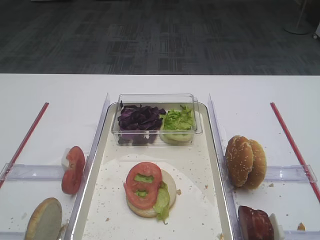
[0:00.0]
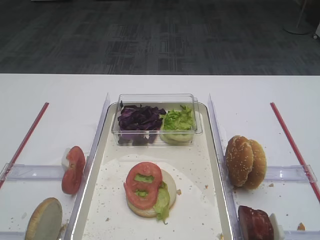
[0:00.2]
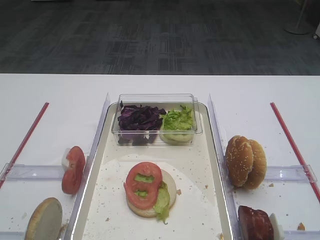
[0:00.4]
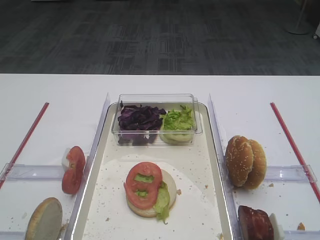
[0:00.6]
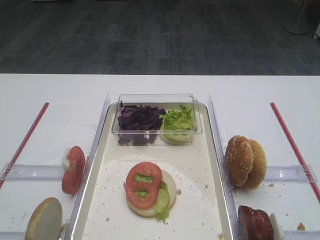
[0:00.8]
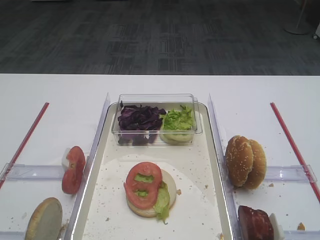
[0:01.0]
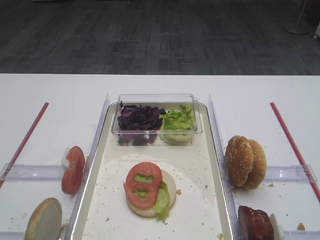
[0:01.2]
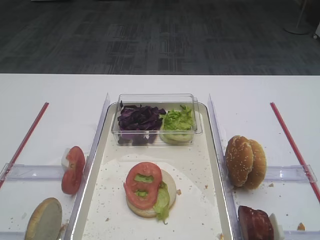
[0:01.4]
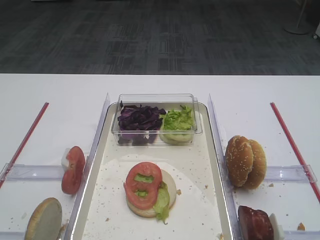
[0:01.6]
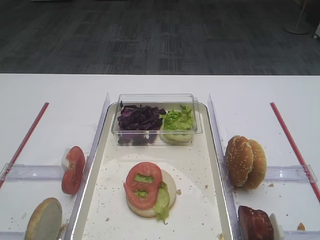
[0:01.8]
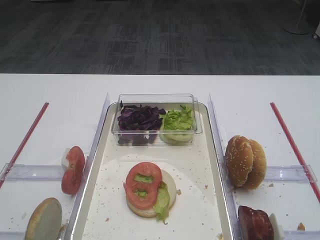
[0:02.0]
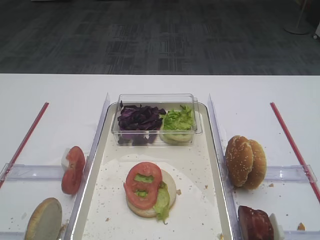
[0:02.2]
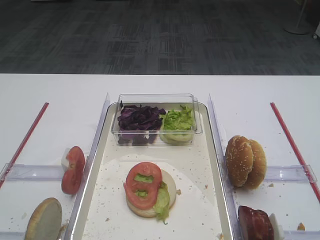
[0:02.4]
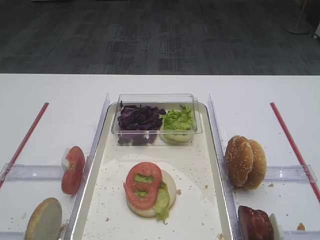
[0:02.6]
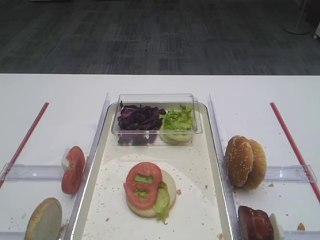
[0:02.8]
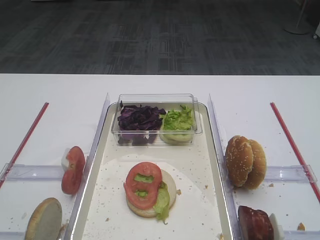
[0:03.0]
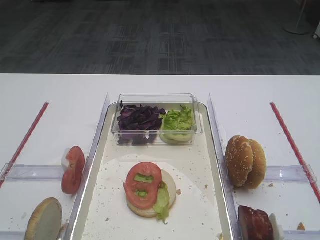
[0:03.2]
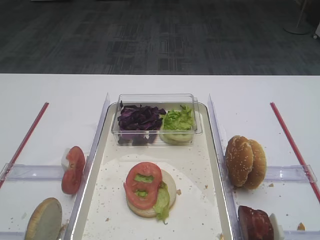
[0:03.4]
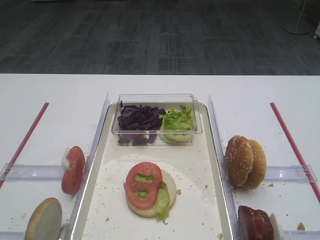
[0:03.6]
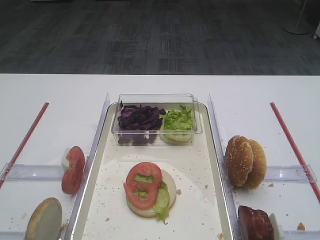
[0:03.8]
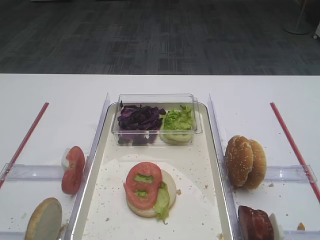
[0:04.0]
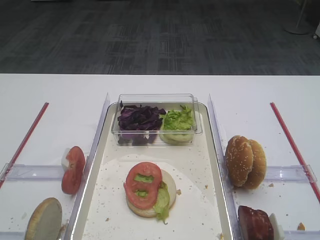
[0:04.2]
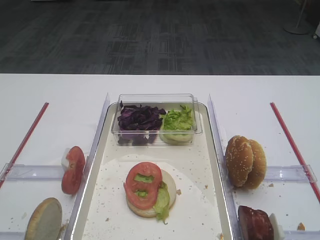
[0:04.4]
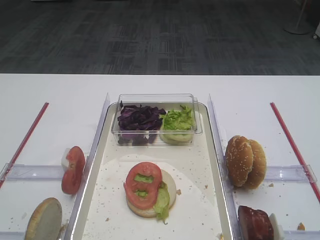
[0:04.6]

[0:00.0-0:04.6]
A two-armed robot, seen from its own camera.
0:01.6 to 0:04.6: Both grippers stay about where they are.

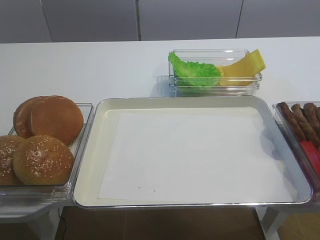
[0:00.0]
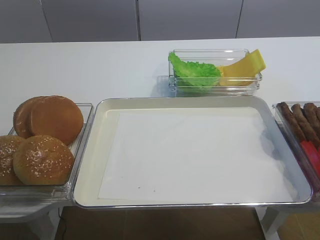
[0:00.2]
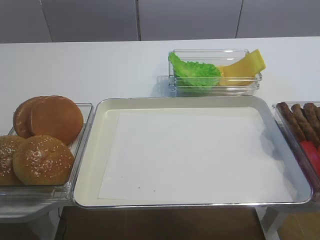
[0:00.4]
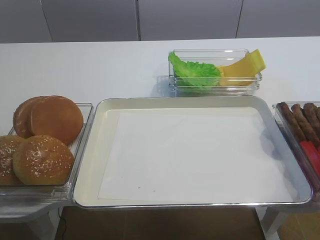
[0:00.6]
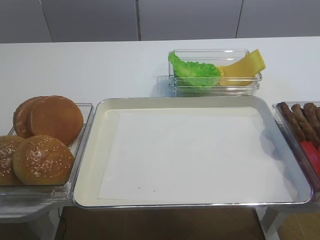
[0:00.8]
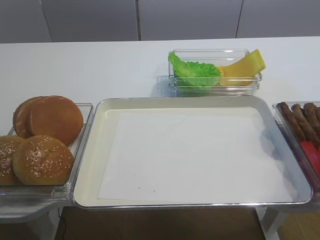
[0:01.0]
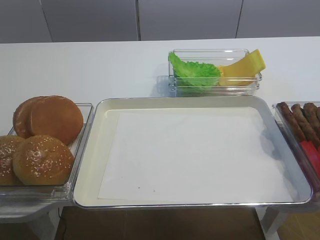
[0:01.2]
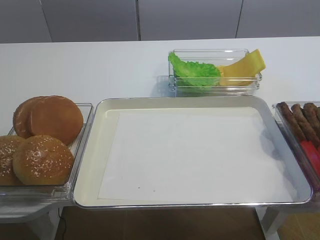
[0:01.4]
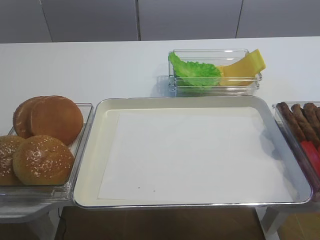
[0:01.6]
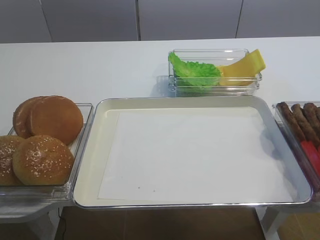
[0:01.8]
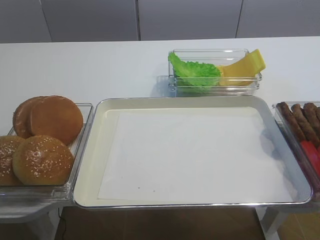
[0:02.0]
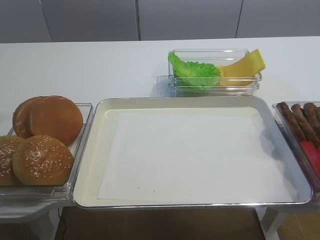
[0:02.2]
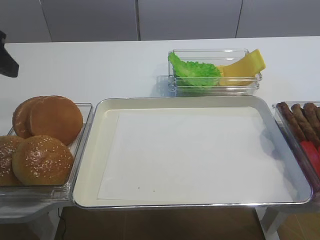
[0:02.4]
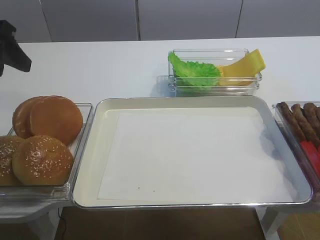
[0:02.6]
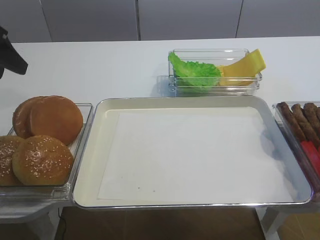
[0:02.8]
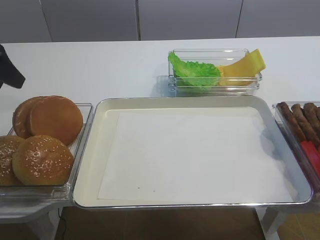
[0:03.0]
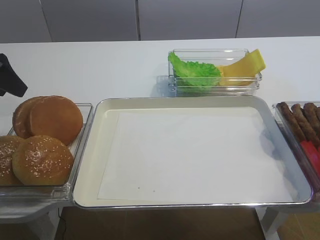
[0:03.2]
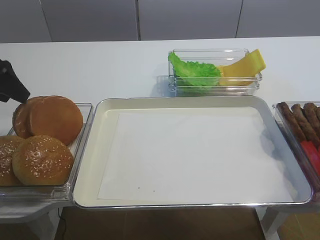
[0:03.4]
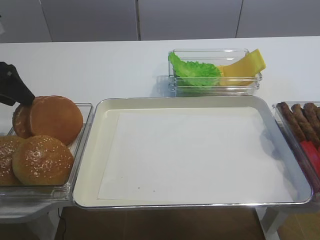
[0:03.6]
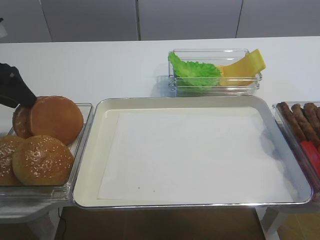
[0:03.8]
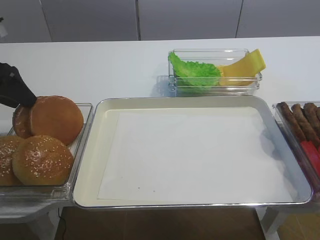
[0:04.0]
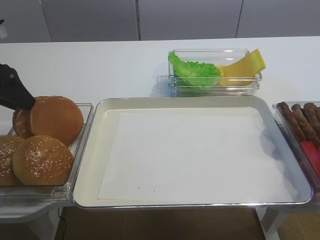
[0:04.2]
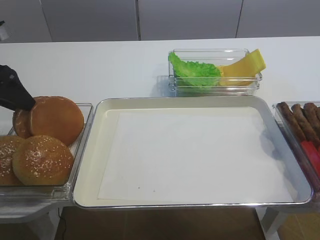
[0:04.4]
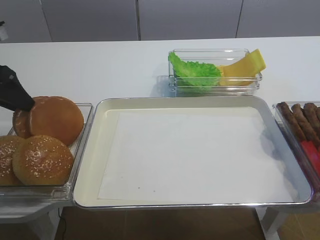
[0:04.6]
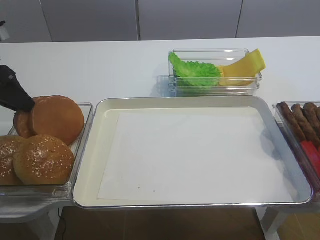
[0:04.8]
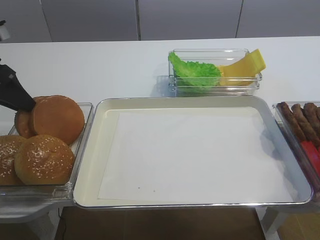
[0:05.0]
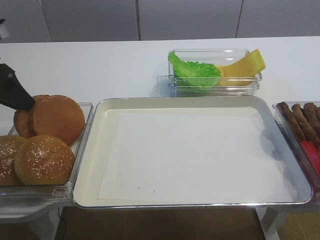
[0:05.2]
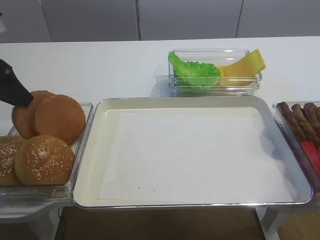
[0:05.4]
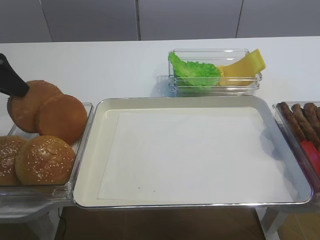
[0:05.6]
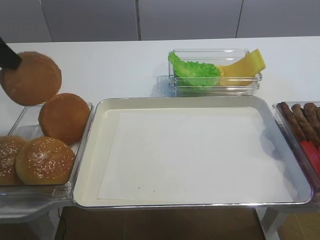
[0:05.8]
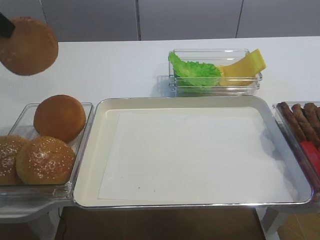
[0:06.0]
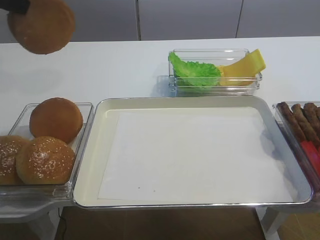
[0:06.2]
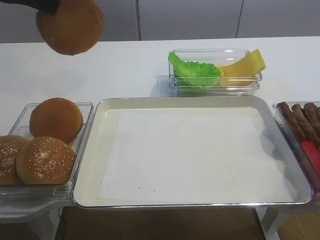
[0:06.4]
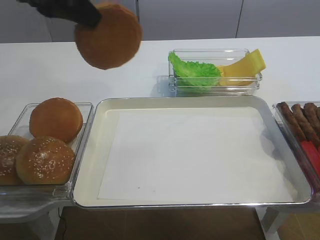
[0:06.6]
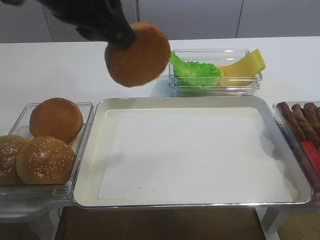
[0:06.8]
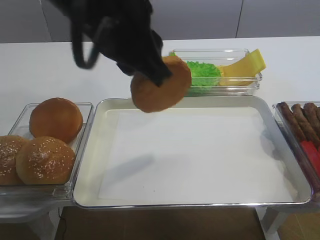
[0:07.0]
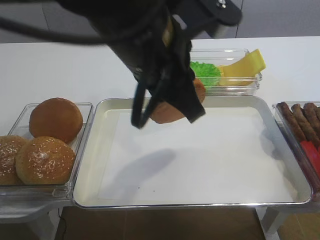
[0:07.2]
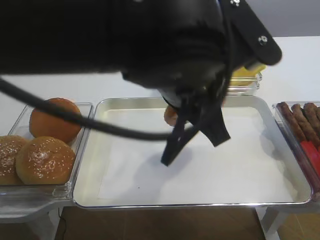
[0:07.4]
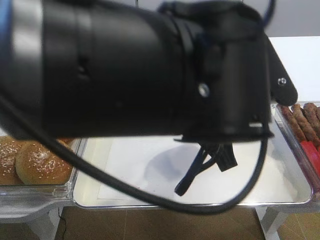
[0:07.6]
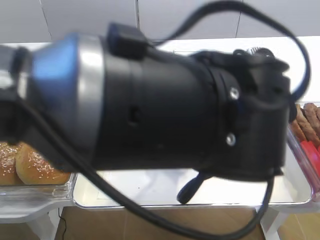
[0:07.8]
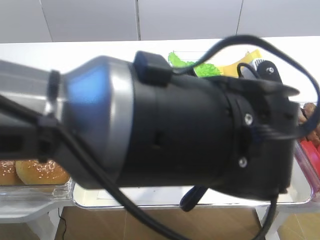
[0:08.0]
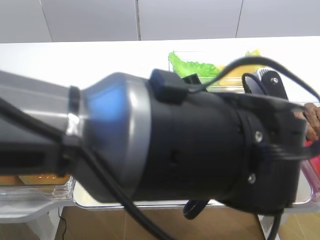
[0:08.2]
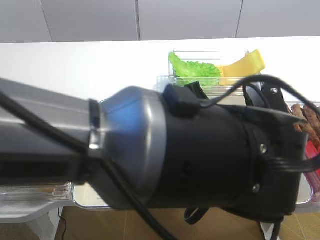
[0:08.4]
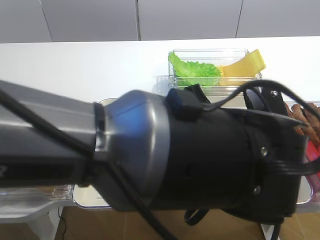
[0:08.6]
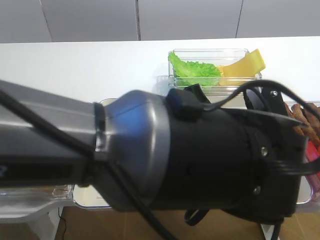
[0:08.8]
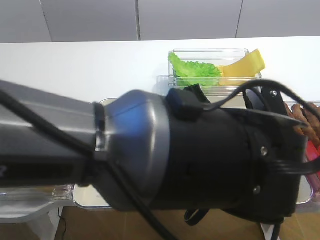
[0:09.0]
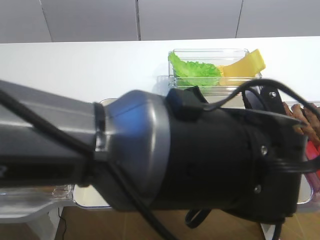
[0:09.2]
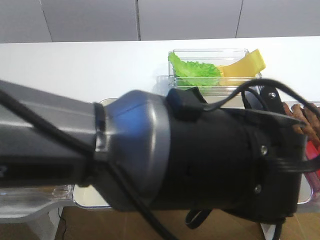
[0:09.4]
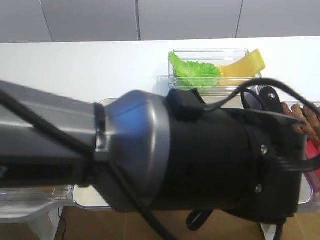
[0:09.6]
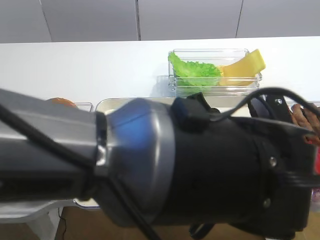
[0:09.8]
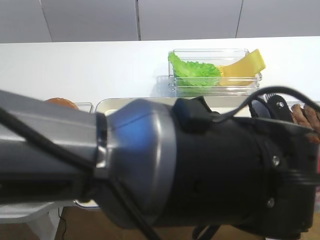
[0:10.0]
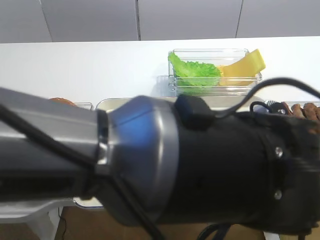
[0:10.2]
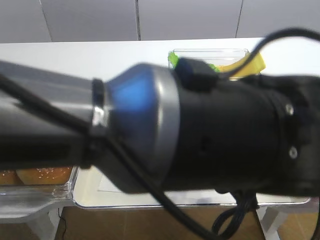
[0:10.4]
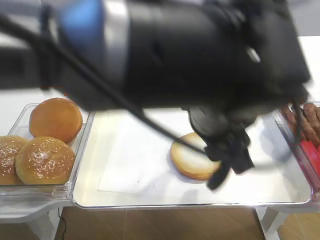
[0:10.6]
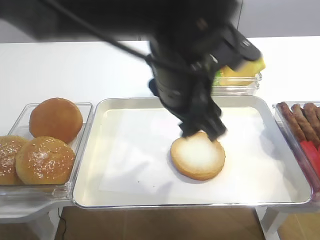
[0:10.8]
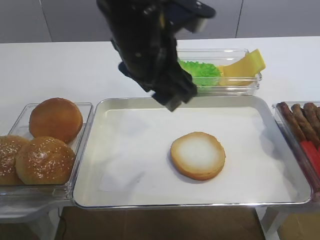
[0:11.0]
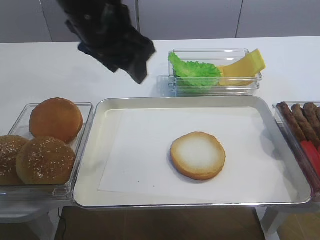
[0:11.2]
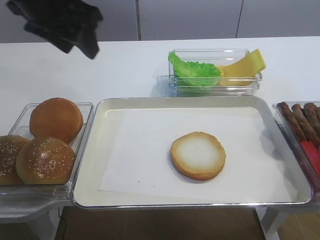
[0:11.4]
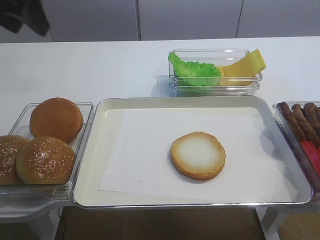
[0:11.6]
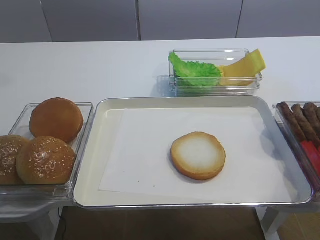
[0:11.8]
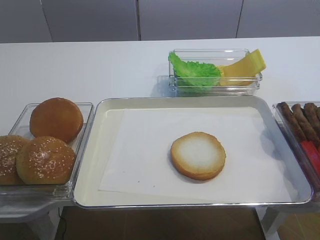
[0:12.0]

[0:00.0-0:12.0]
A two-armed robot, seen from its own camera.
Step, 0:00.0 to 0:06.2: Pick up the bread slice with the left gripper.
Step, 0:06.6 to 0:10.8: Place the bread slice on the tray with the left gripper.
0:01.6 to 0:03.0: The left gripper travels forward by approximately 30 cm.
0:03.0 to 0:04.4: The left gripper moves about 5 cm, and closes up.
0:04.4 to 0:06.0: The left gripper is displaced upward by some 15 cm, and closes up.
0:06.0 to 0:07.6: The left gripper shifts about 35 cm to the right.
0:07.6 to 0:09.0: The left gripper changes place by about 5 cm.
0:09.0 to 0:10.4: The left gripper opens up.
0:10.4 to 0:12.0: The left gripper goes approximately 40 cm to the left and upward.

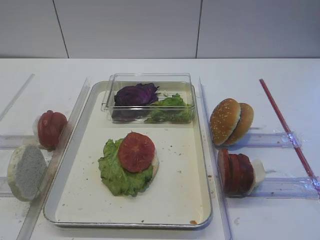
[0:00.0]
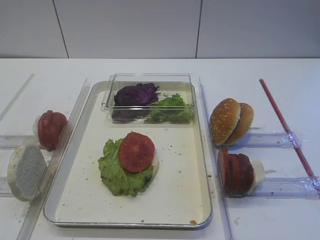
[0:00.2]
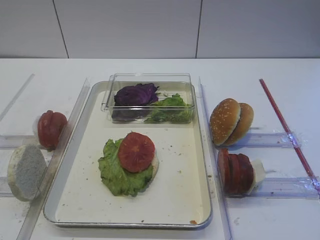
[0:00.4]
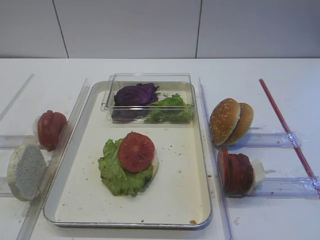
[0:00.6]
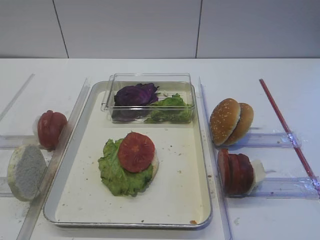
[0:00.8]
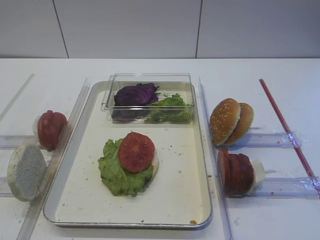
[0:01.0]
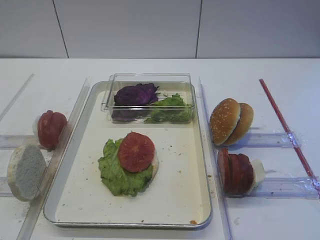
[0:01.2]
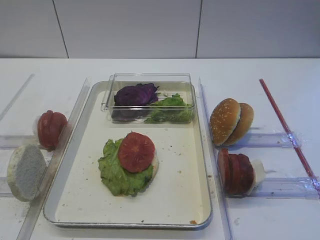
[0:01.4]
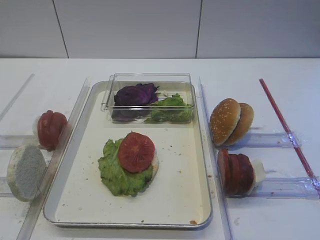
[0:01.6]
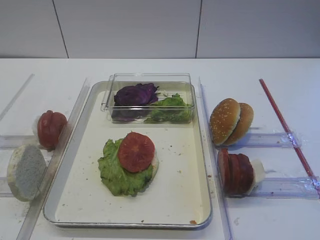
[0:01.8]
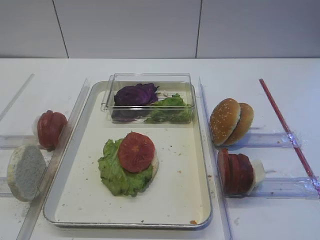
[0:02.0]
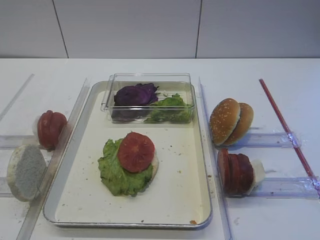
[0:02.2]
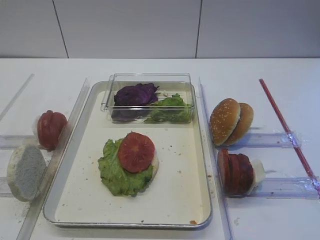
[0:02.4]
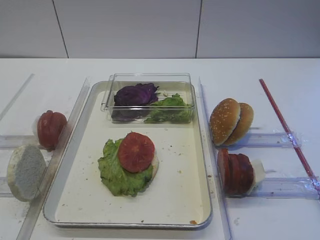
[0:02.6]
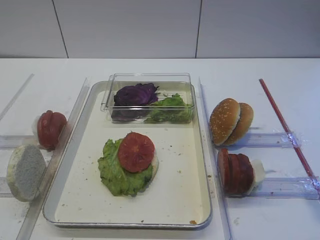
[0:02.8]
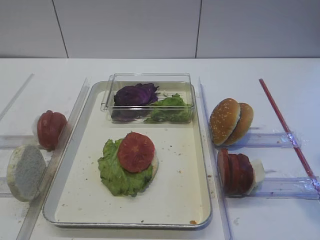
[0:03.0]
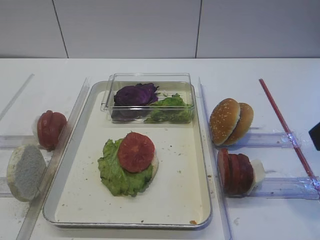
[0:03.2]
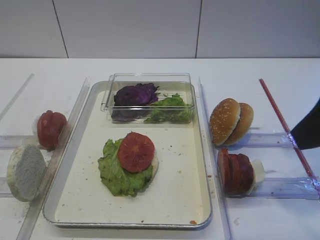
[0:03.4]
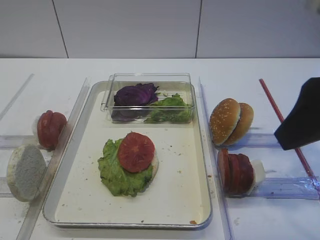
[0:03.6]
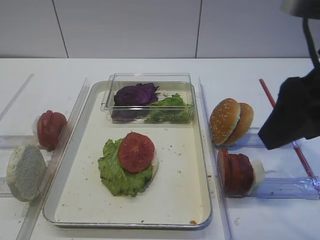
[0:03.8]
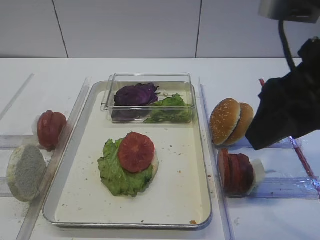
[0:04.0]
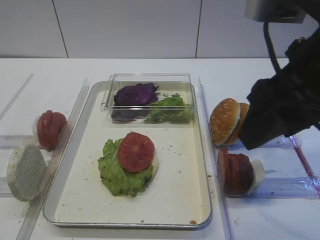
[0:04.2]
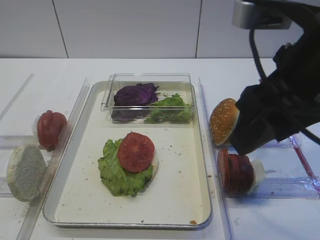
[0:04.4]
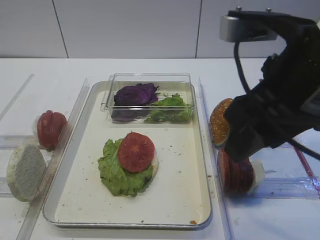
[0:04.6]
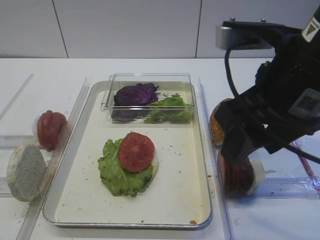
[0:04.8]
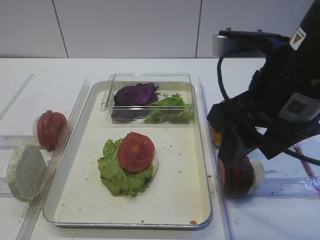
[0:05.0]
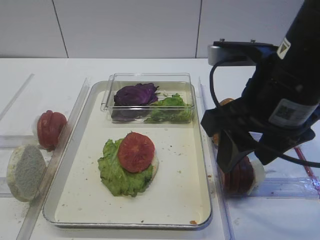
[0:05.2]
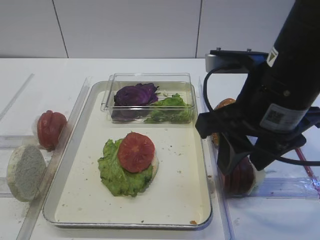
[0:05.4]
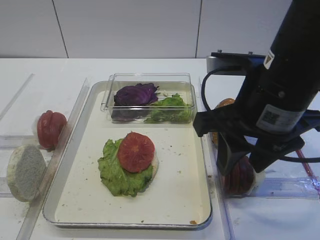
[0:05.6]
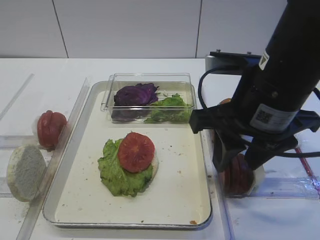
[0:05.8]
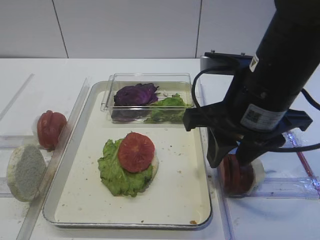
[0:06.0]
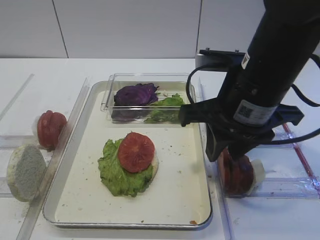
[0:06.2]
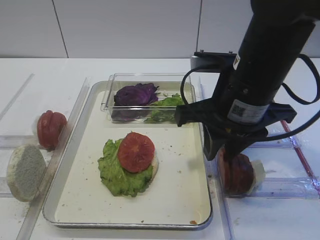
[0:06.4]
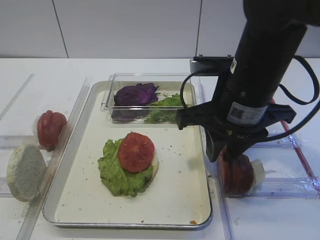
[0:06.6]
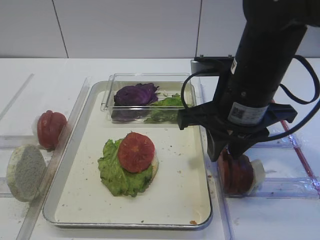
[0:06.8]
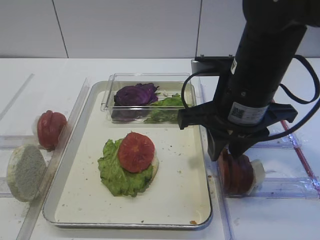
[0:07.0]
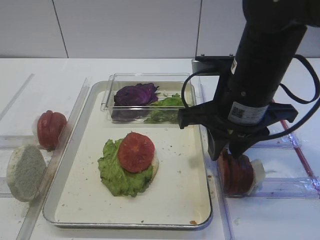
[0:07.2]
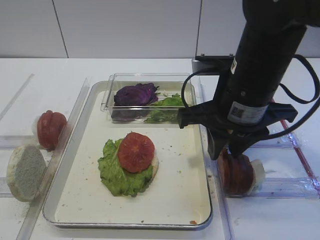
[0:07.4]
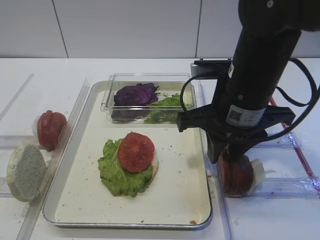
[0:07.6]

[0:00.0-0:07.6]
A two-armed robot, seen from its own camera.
0:03.0 to 0:04.6: The right gripper shifts about 10 cm to the left and forward.
0:04.6 to 0:06.0: The right gripper shifts approximately 5 cm downward.
0:06.0 to 0:07.6: The grippers move only a little.
